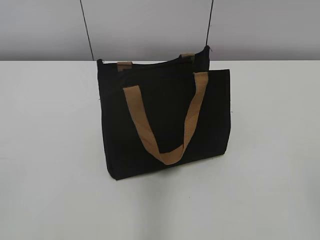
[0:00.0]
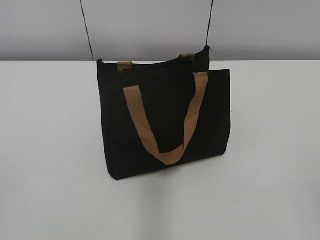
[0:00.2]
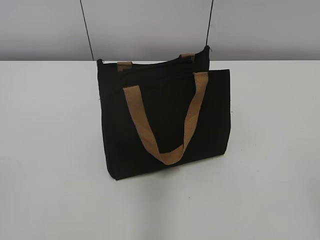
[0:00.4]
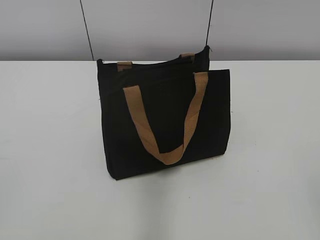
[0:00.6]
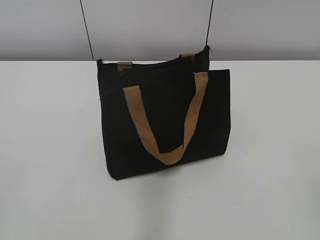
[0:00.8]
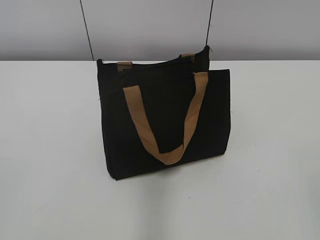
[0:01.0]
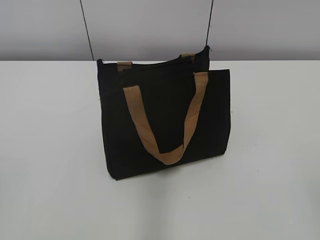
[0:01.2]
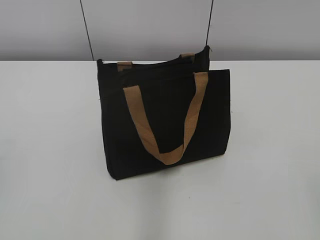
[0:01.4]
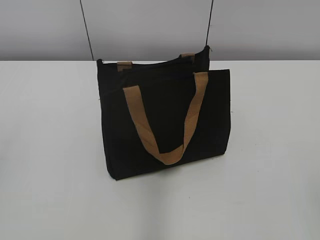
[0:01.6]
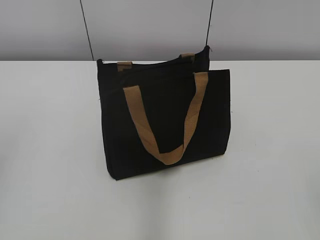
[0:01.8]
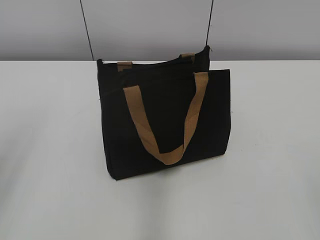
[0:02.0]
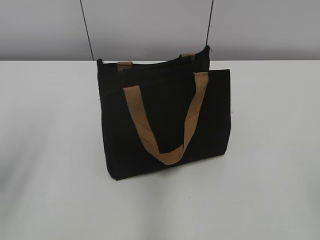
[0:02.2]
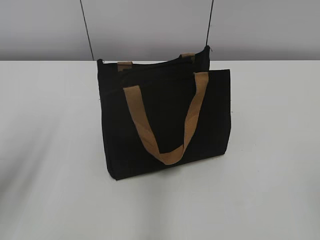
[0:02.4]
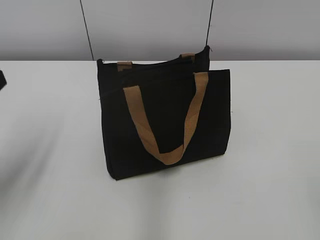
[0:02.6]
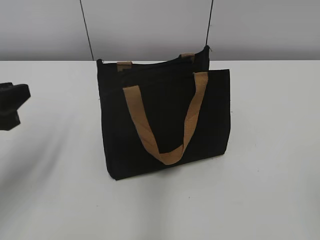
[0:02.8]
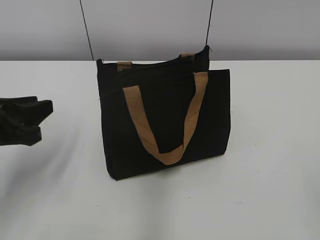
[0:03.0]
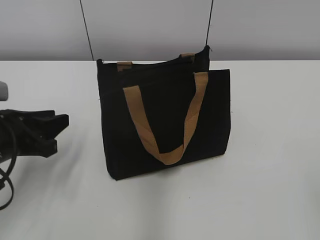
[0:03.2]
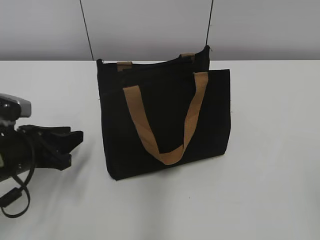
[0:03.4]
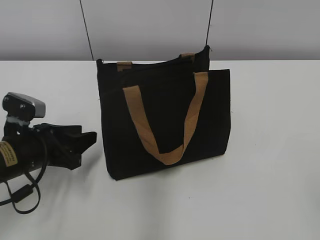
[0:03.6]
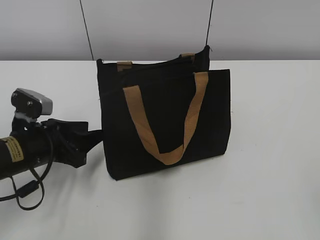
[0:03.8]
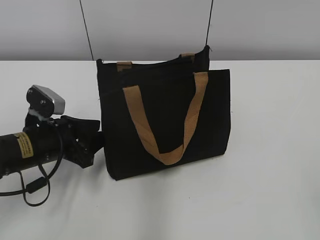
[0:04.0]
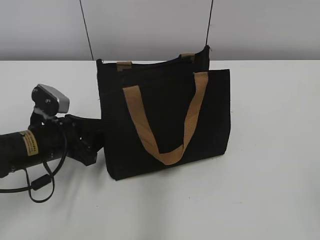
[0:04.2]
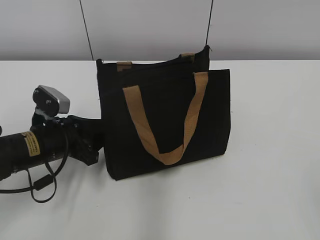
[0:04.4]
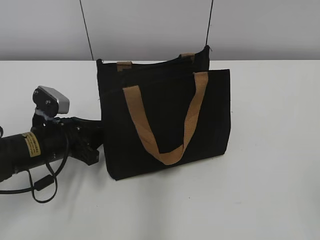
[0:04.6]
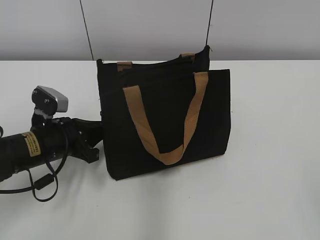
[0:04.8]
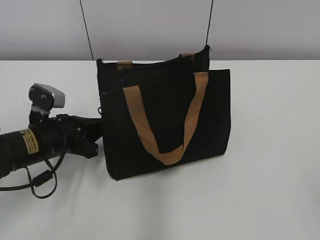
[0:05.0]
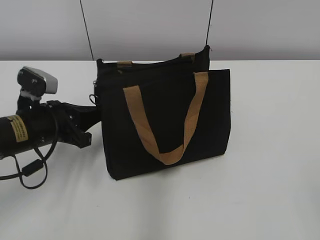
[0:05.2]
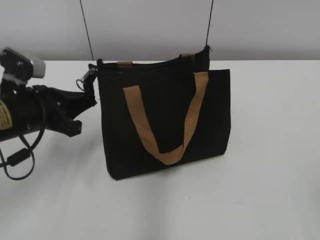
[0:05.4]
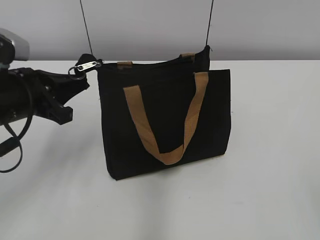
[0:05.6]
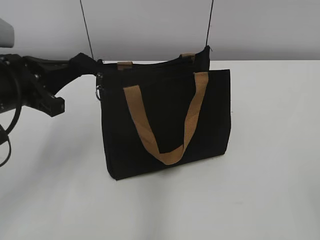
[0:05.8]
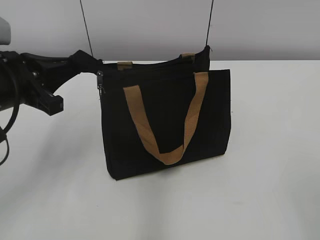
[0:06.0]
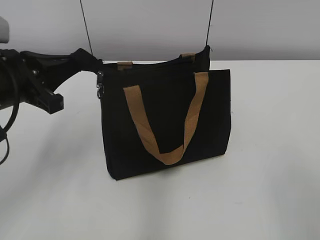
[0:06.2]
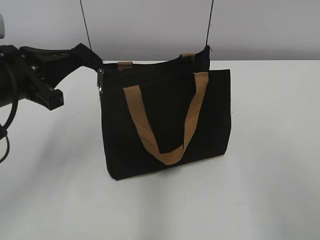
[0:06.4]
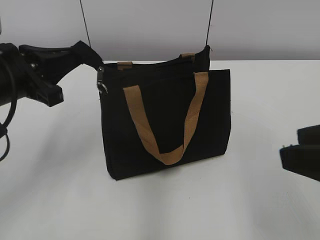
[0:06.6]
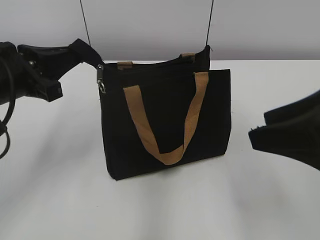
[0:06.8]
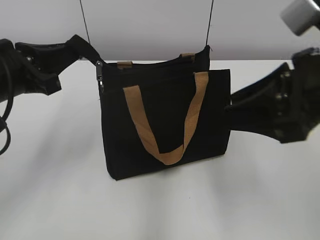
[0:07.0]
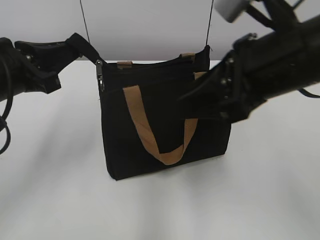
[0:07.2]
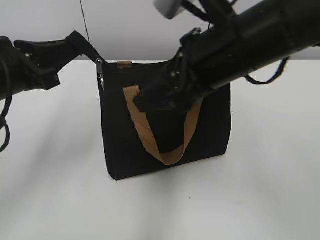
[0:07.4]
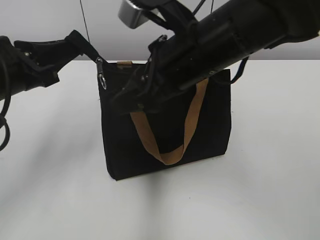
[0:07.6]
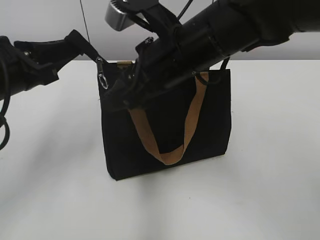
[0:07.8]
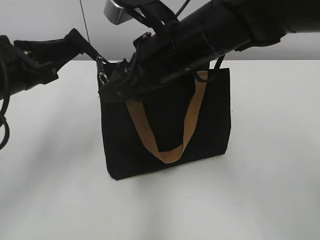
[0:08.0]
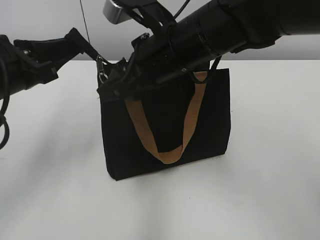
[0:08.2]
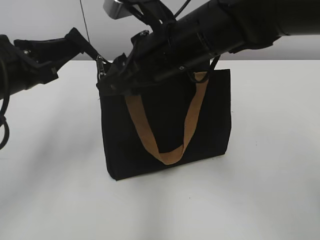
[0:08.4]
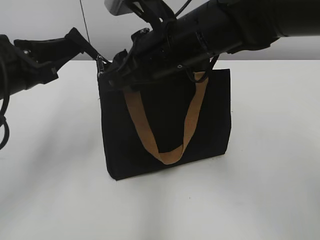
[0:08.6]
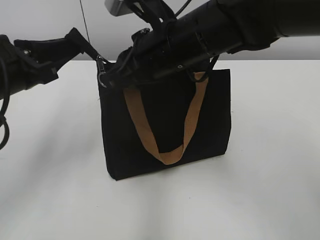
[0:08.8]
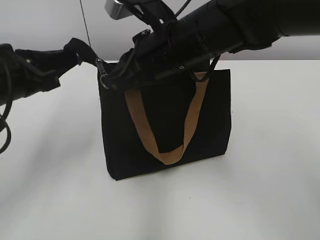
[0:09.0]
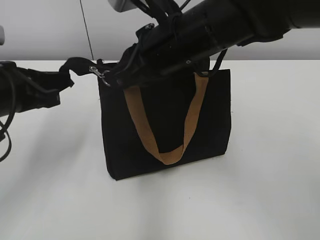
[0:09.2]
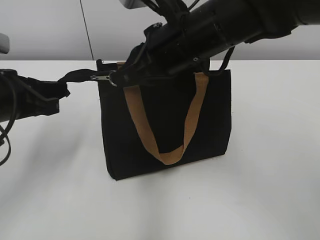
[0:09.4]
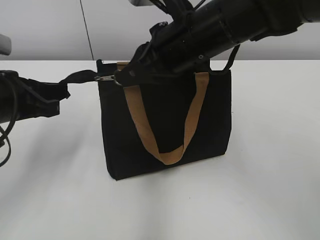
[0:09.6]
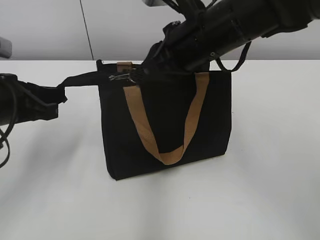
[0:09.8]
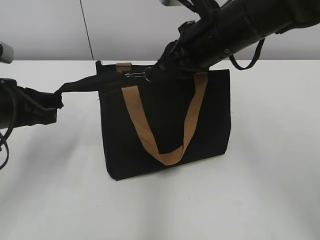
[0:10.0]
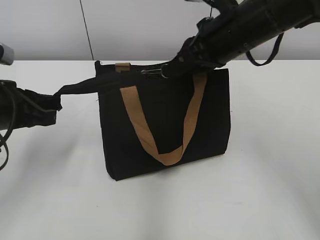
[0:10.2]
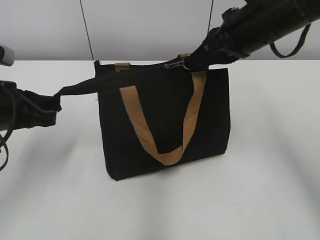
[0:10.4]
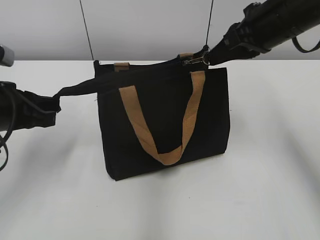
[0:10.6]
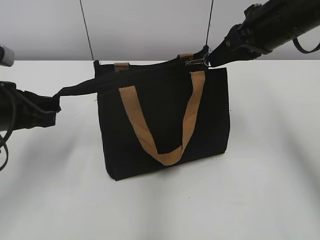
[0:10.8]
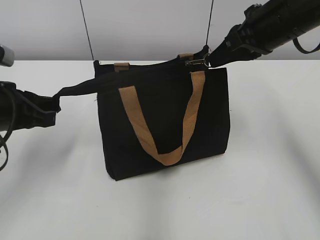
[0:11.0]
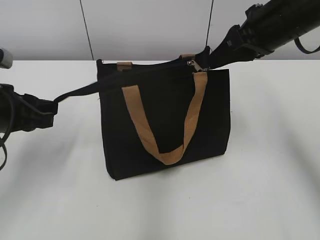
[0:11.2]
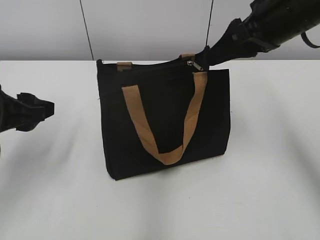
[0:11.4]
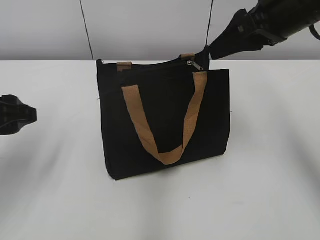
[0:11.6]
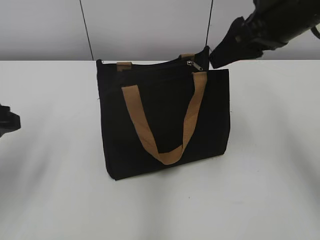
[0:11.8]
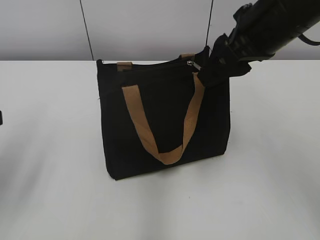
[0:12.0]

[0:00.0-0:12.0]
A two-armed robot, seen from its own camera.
Step, 0:00.0 to 0:11.2: Zip up the bag with your right hand.
0:01.6 to 0:03.0: The left gripper goes approximately 25 cm forward and downward.
0:03.0 to 0:04.4: The left gripper goes roughly 15 cm downward, forward and to the right.
0:04.4 to 0:06.0: The left gripper is displaced upward by roughly 15 cm, and closes.
0:06.0 to 0:07.6: The right gripper travels forward and to the left by about 35 cm.
0:07.6 to 0:09.0: The right gripper closes its fingers.
0:09.0 to 0:10.4: The right gripper goes some 10 cm to the right.
0:10.4 to 0:12.0: The right gripper changes place by about 5 cm, and opens. The left gripper travels backward by some 5 cm, and opens.

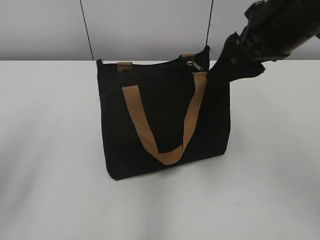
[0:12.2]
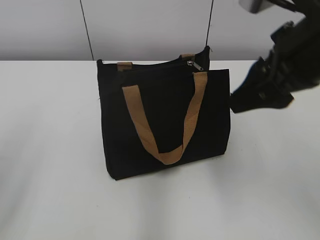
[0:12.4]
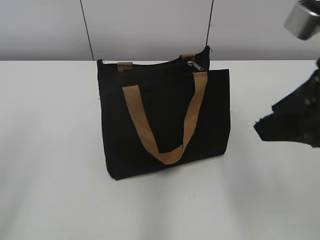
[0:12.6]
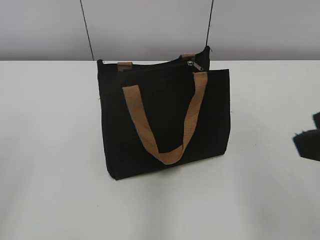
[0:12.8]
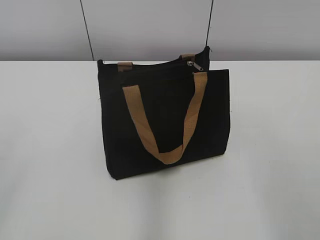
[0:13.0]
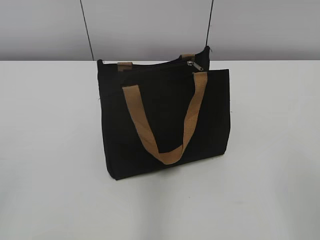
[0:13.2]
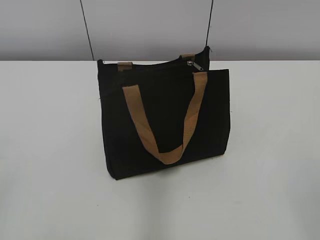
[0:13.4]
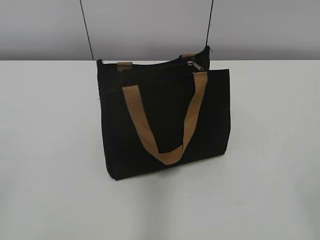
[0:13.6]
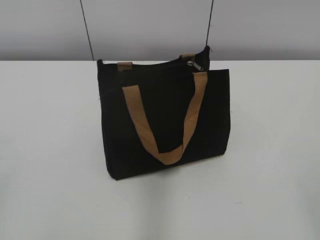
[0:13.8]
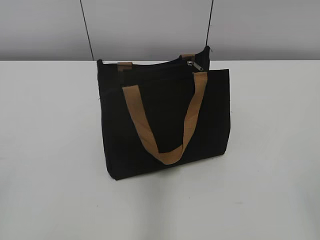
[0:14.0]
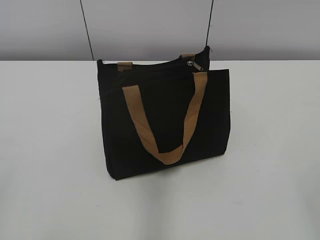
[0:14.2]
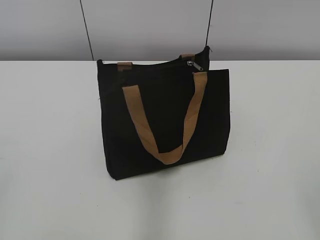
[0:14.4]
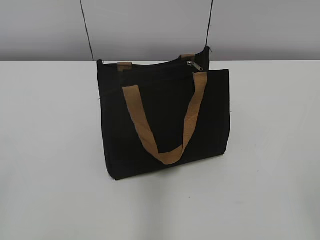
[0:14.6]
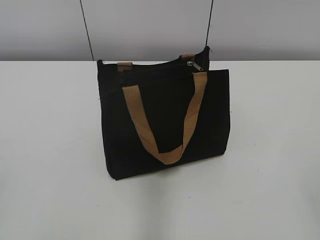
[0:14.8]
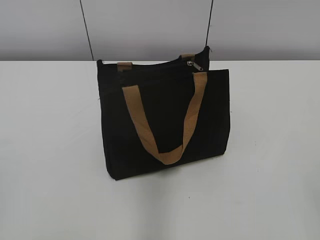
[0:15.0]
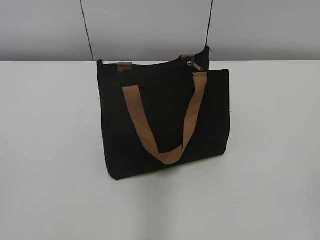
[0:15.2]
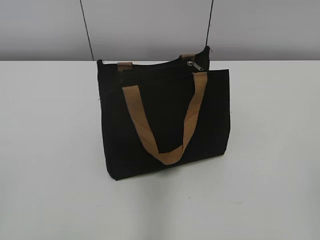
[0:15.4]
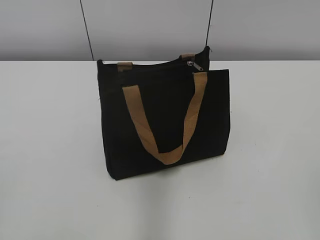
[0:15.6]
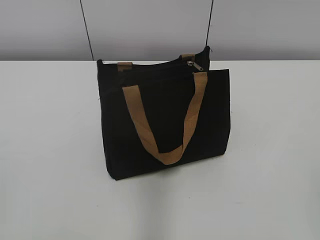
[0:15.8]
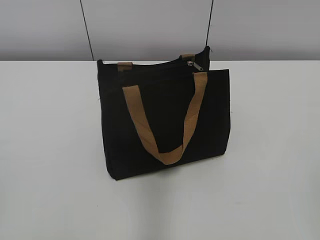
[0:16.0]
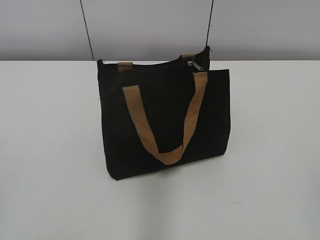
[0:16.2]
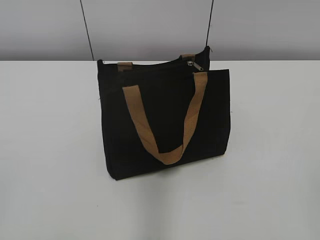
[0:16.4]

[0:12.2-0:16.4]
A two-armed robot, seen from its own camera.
0:12.2 to 0:13.6: The right gripper goes some 30 cm backward and to the right.
